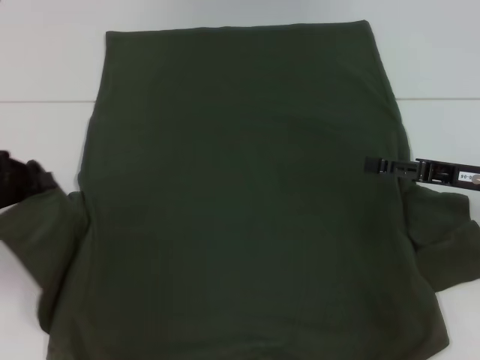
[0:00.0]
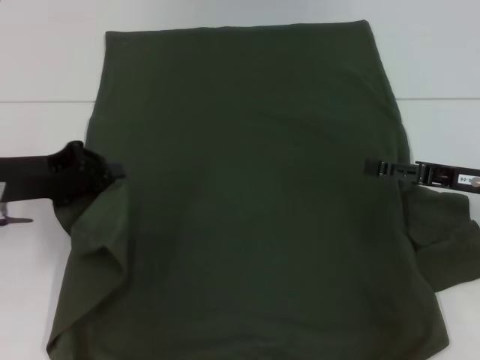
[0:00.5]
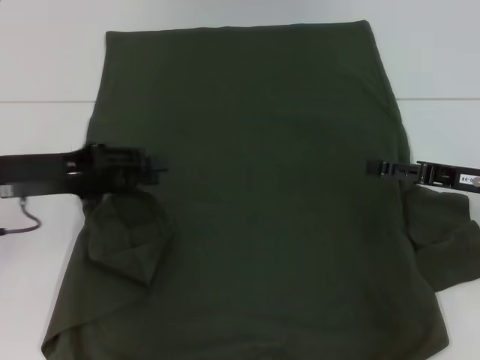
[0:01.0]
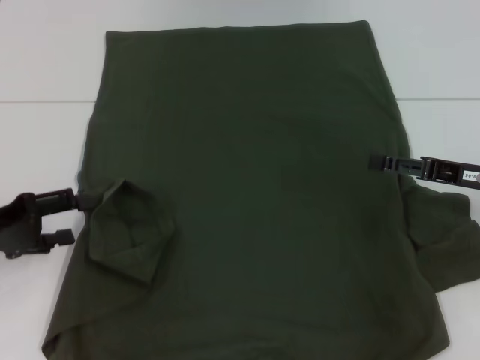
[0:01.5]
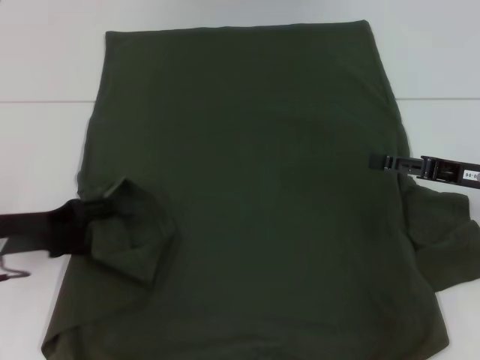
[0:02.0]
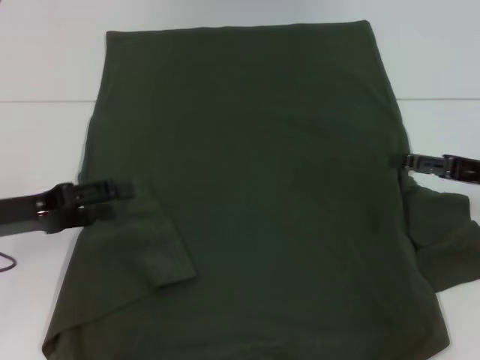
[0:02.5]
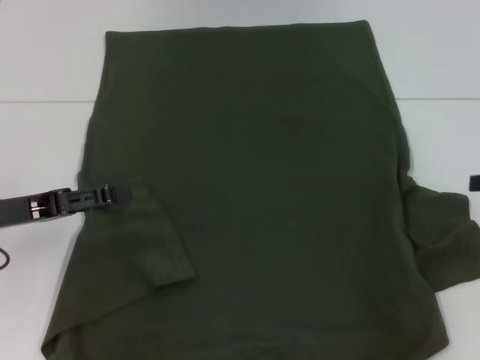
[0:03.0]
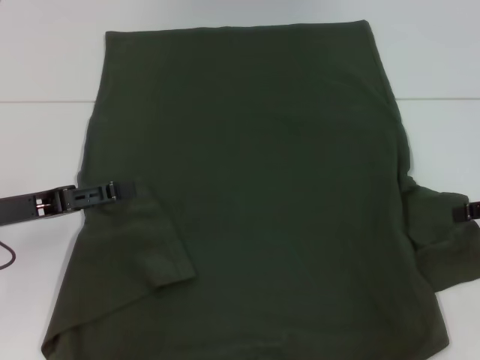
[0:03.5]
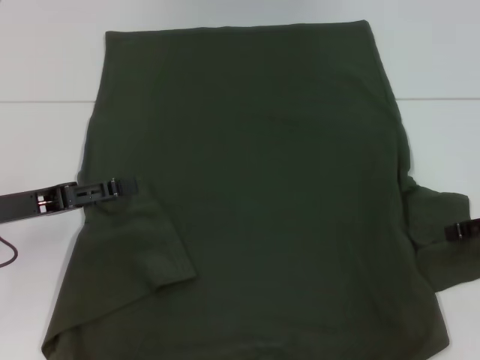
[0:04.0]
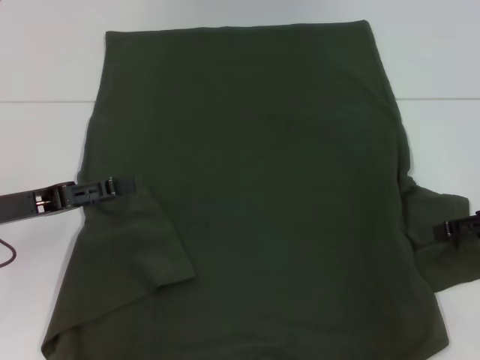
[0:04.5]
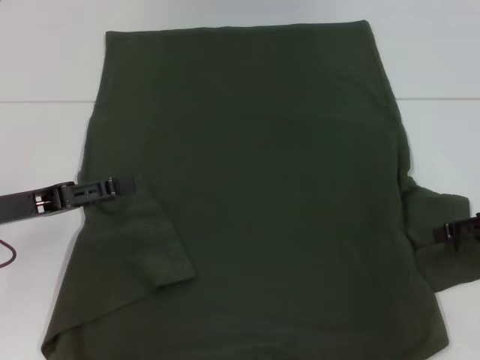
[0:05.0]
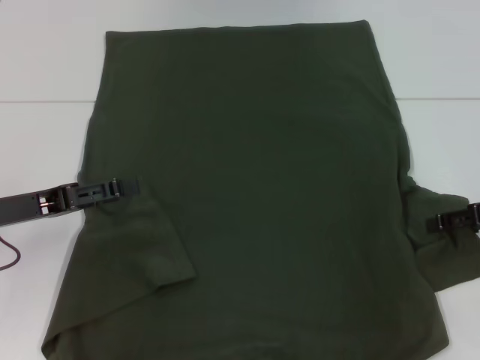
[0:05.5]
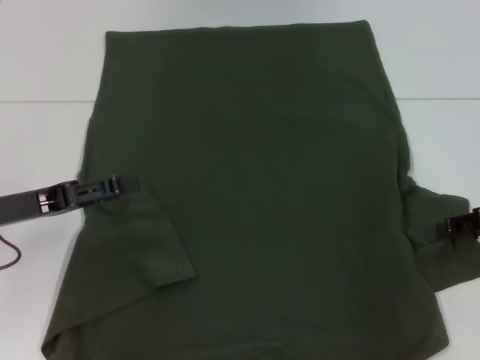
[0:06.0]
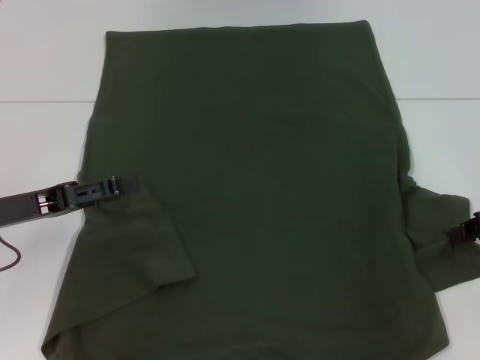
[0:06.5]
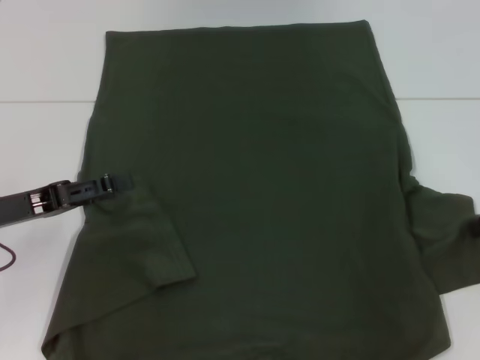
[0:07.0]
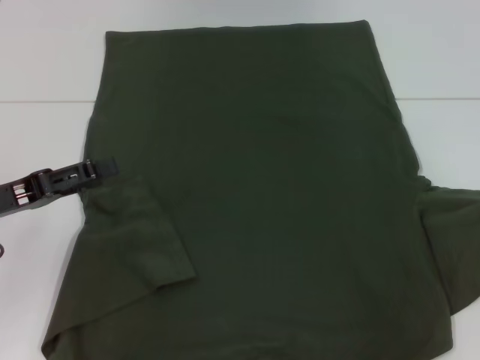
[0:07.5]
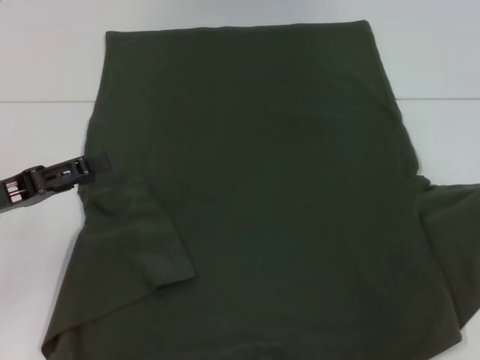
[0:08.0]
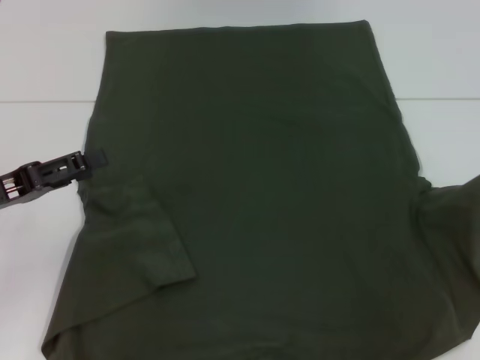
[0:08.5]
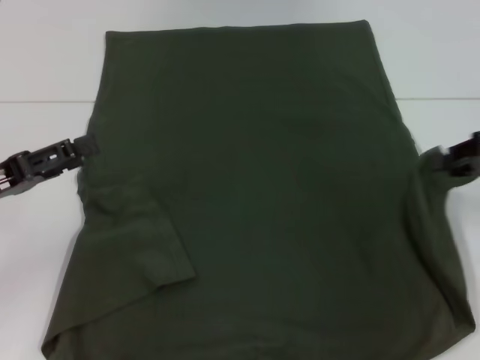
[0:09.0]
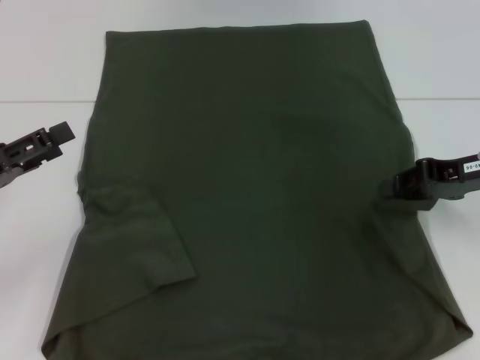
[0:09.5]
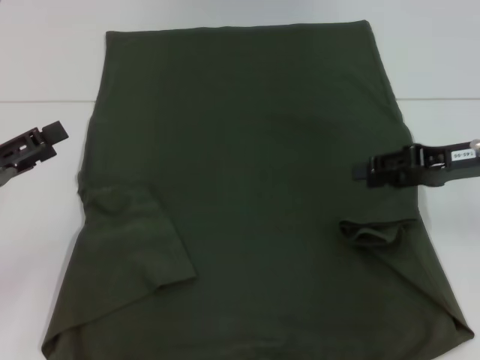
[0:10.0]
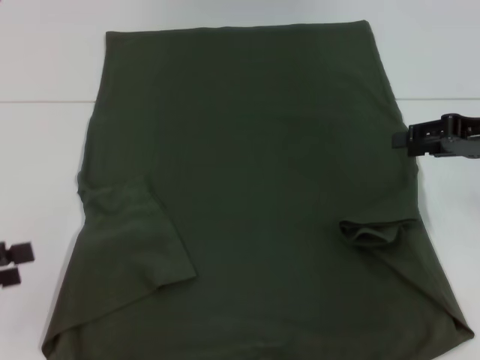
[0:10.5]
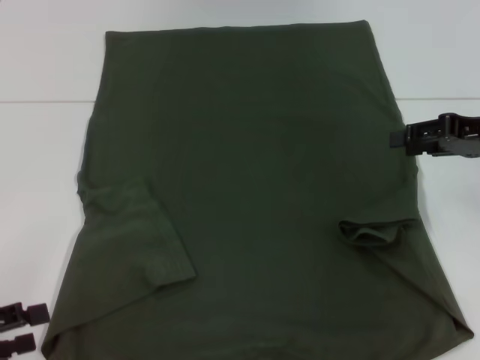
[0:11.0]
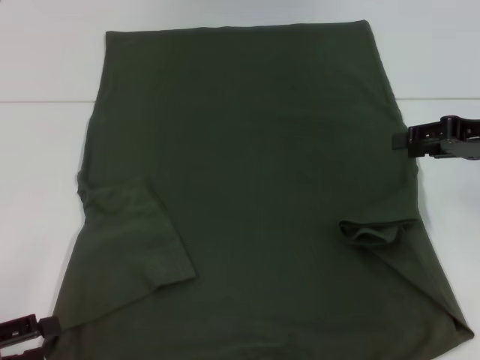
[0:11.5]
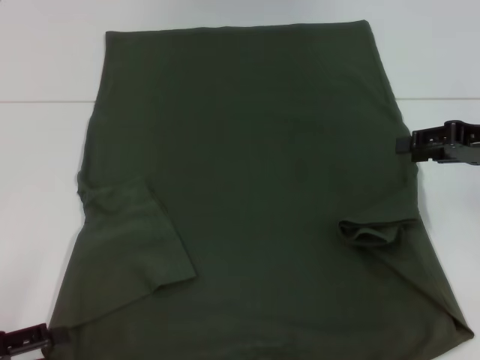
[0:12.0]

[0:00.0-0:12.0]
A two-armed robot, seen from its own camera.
Step, 0.0 to 2.0 s: Fold the bottom left sleeve with your left hand.
Step, 2.5 to 9.5 s: Fold the bottom right sleeve with your right hand.
0.0 to 2.0 s: The left gripper goes approximately 5 cm downward, and opens its fingers.
2.0 to 4.0 s: The right gripper moves to the right, about 5 cm.
6.0 to 8.0 s: The right gripper heads to the right, covering approximately 5 cm, and closes.
8.0 to 10.0 s: The right gripper travels to the left by about 10 cm, and opens.
10.0 to 12.0 s: The left gripper goes some 10 cm backward and downward.

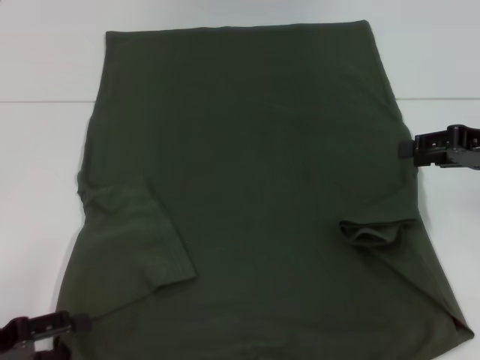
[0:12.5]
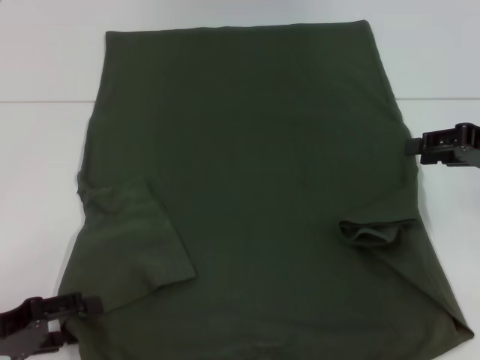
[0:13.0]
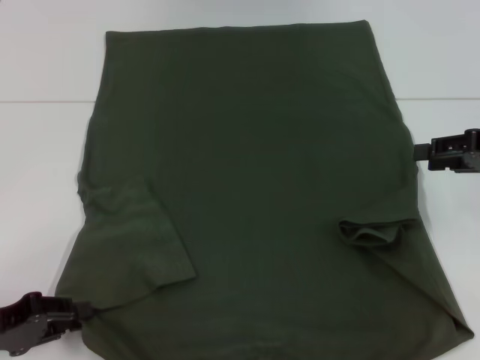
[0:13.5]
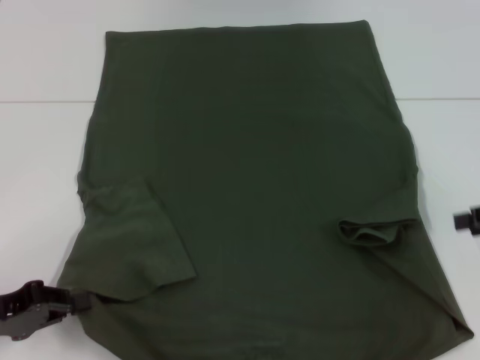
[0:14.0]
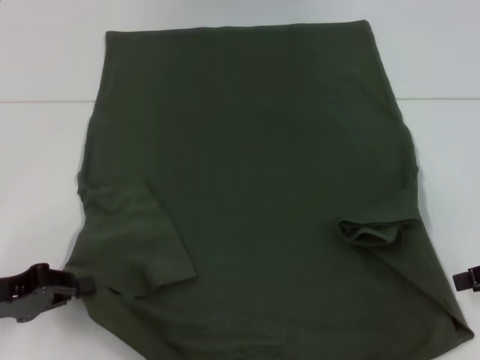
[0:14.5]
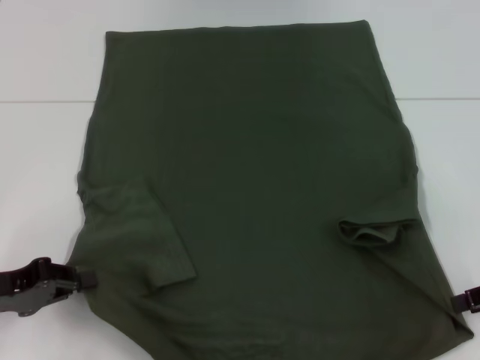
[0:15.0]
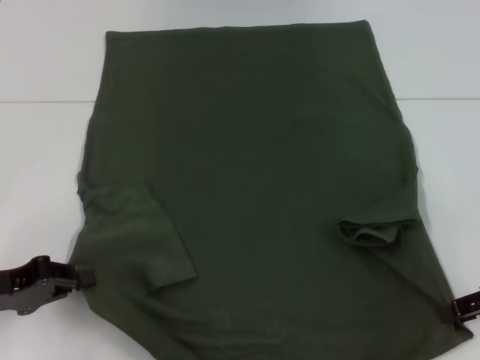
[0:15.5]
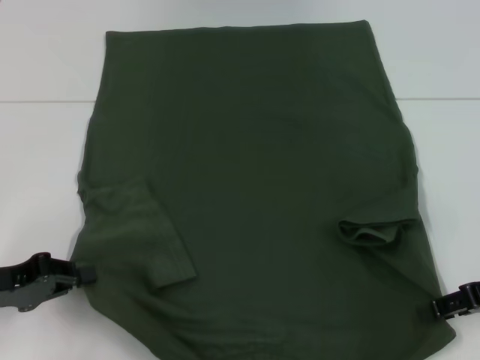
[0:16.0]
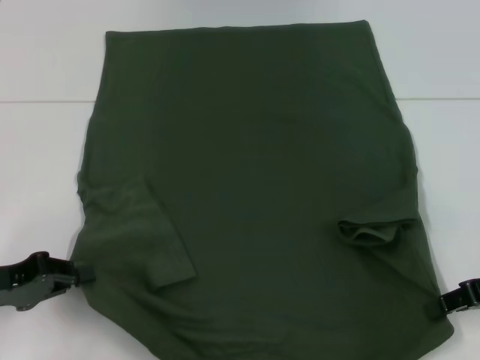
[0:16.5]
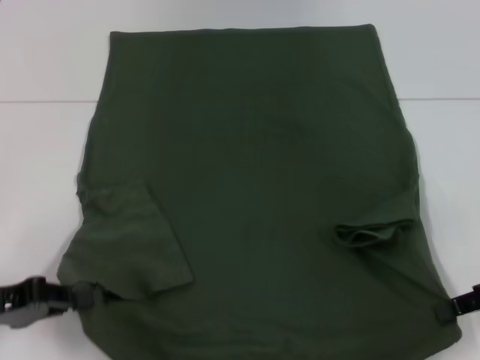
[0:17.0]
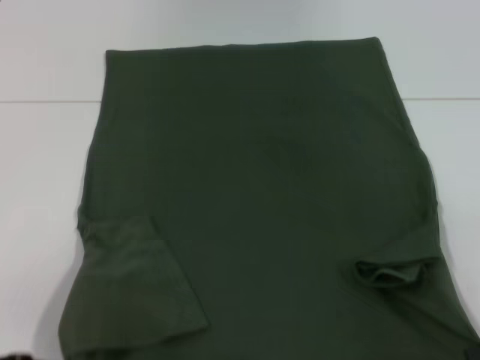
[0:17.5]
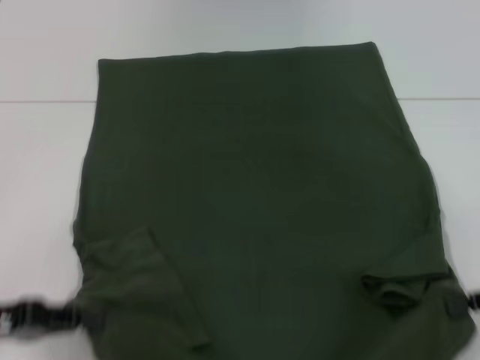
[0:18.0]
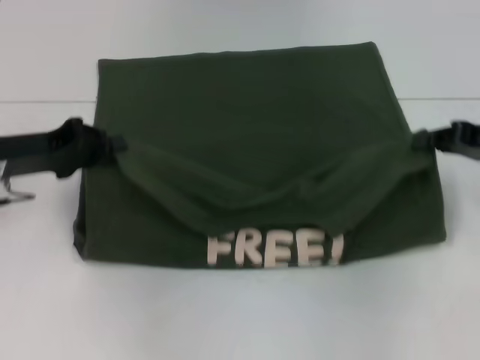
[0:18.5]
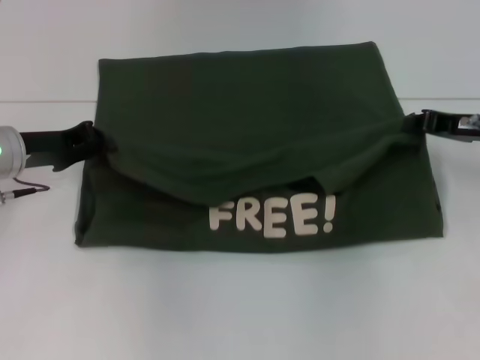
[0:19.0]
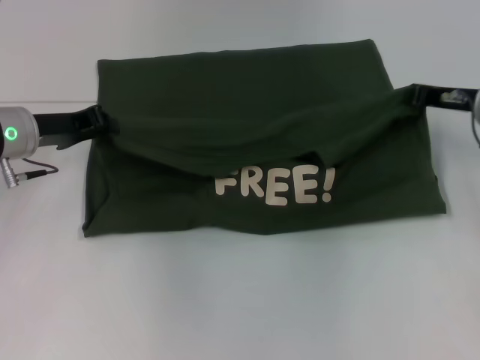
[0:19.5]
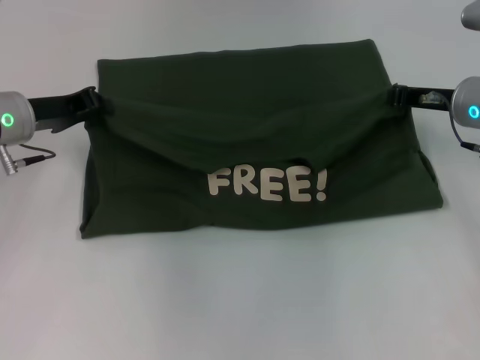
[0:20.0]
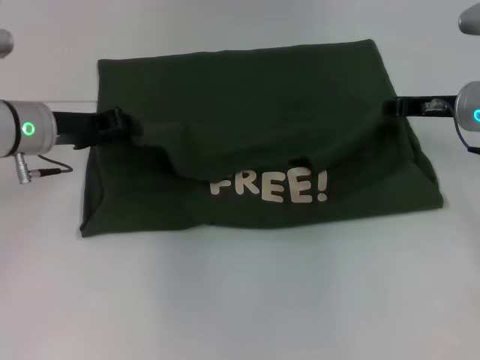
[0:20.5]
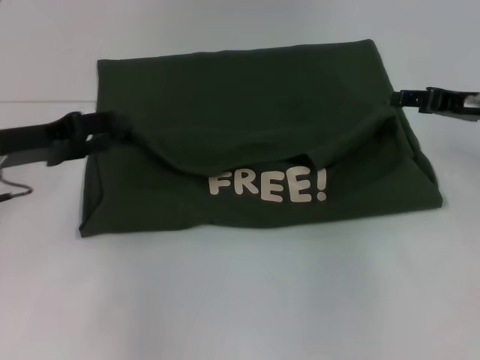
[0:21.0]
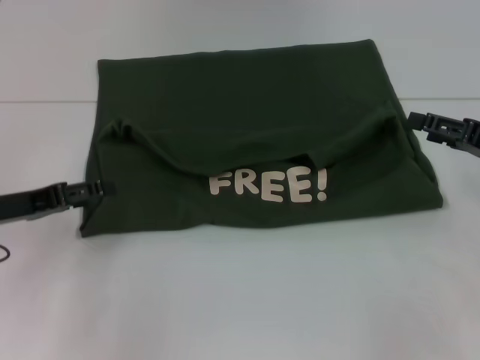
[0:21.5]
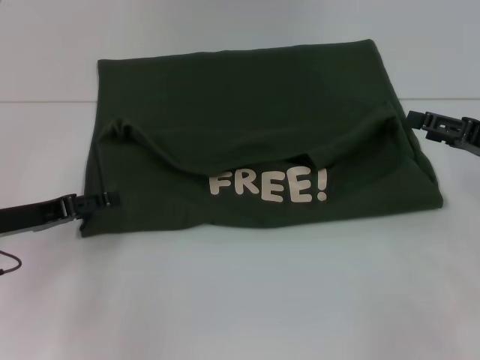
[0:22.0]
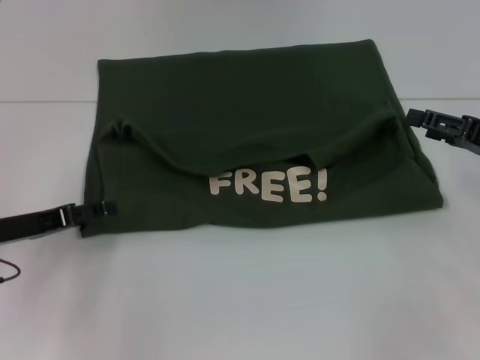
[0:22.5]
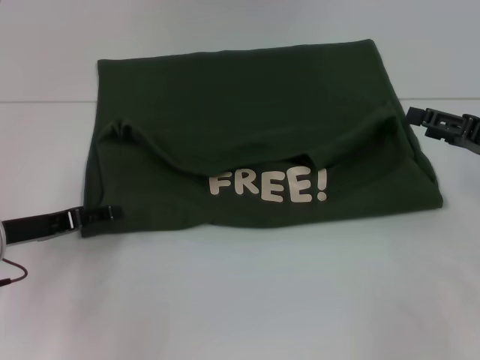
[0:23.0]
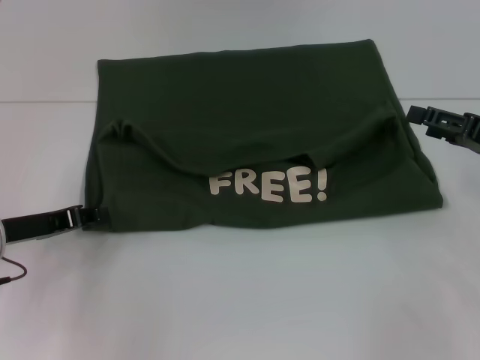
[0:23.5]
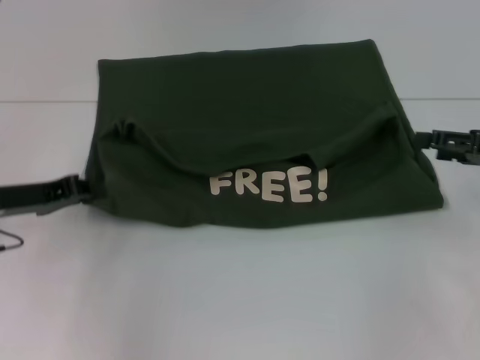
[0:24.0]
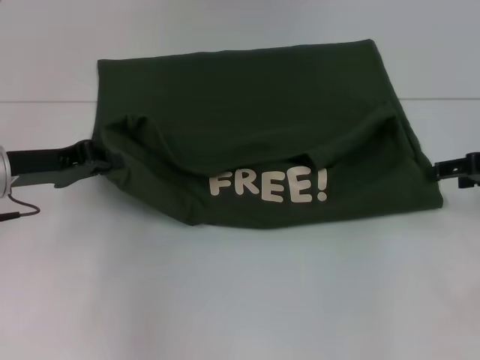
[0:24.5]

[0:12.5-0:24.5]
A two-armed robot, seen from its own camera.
Step, 14.0 to 16.5 s: Grab the bottom right corner with your right hand.
Step, 17.0 to 20.5 s: Fold the clothes with your left hand.
Step, 17.0 to 20.5 s: Fold the clothes with your right hand.
12.5 to 14.5 s: The right gripper moves backward, approximately 5 cm; the left gripper shifts by approximately 5 cm, and closes.
14.5 to 16.5 s: There are only small adjustments of the grippers.
16.5 to 18.5 s: The left gripper heads forward and upward, covering about 10 cm. The right gripper is displaced forward by approximately 5 cm, and closes.
18.5 to 20.5 s: The left gripper travels forward by about 5 cm; the right gripper is displaced to the left and forward by about 10 cm.
20.5 to 22.5 s: The left gripper shifts about 15 cm backward, downward and to the left, and opens, while the right gripper is displaced backward and to the right by roughly 10 cm, and opens up.
22.5 to 24.5 s: The left gripper heads upward, covering roughly 5 cm, and closes.

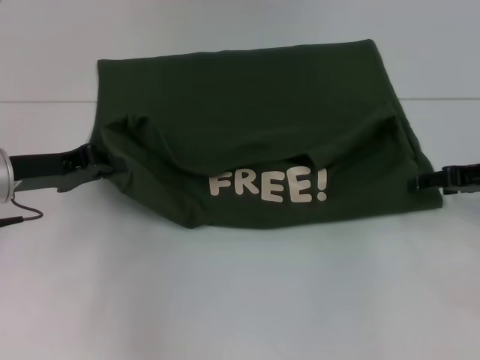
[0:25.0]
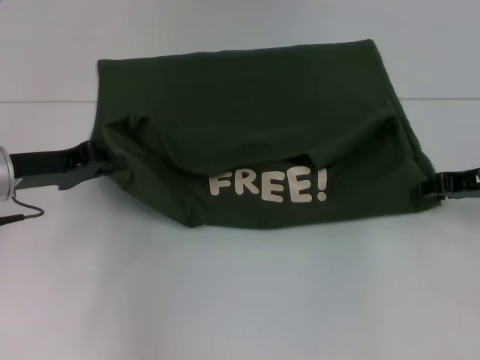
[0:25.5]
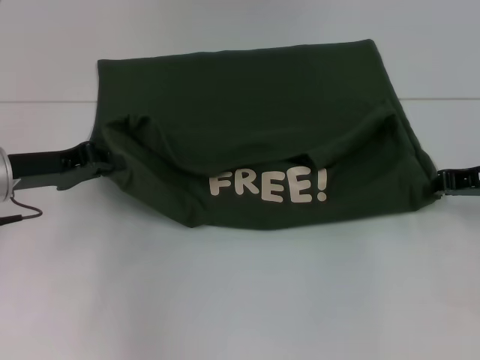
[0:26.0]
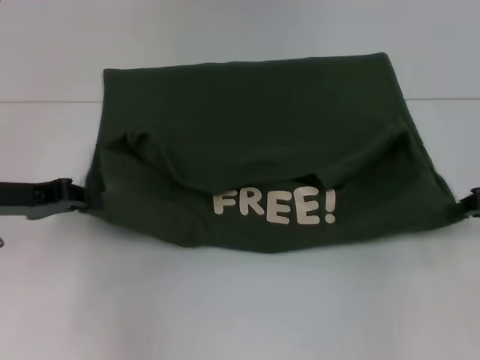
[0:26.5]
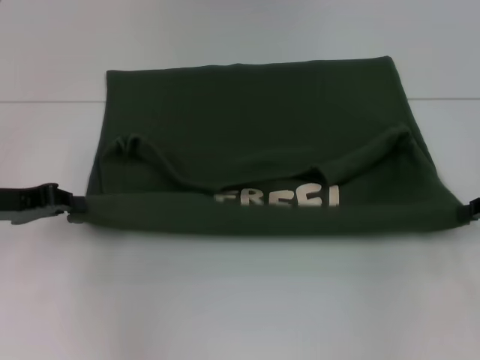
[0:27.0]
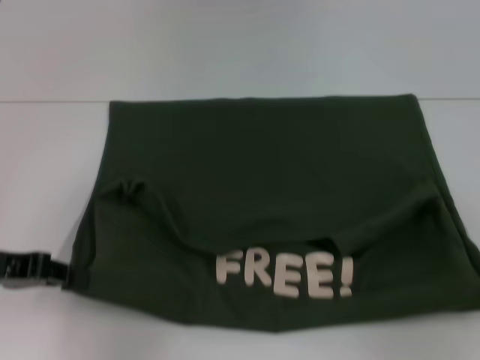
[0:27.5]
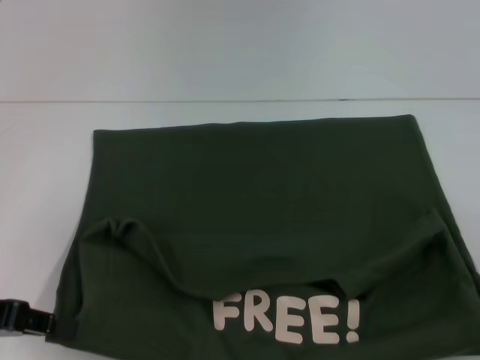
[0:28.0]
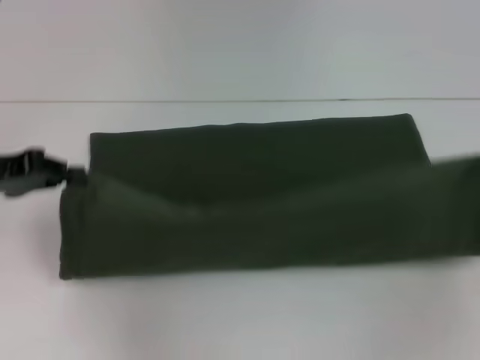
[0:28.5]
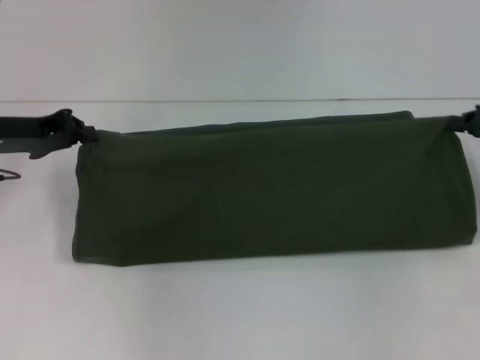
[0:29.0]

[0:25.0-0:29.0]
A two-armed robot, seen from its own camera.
Step, 25.0 to 28.0 s: Pull the clothes with your left hand.
Step, 25.0 to 28.0 s: Pull the clothes with your right hand.
25.0 to 27.0 s: The right gripper changes place by approximately 5 cm, and closes.
27.0 to 29.0 s: The right gripper goes backward and returns, about 10 cm each way; the left gripper moves forward, about 5 cm.
